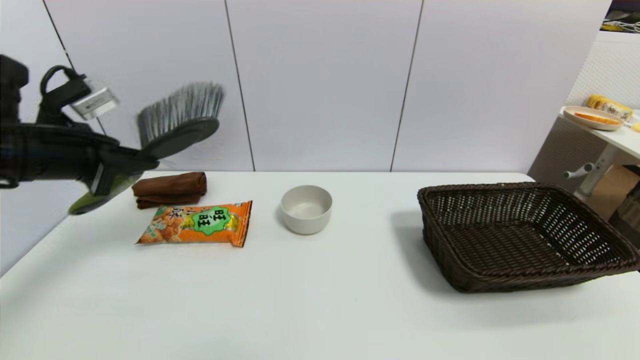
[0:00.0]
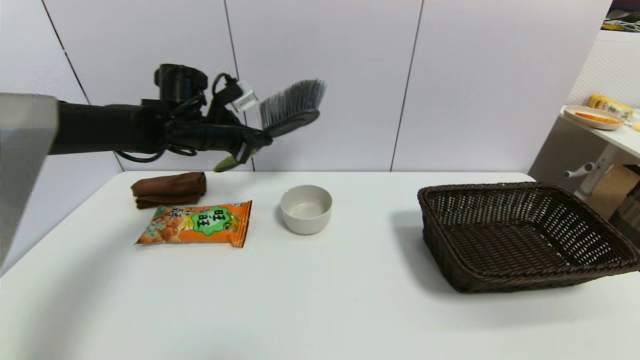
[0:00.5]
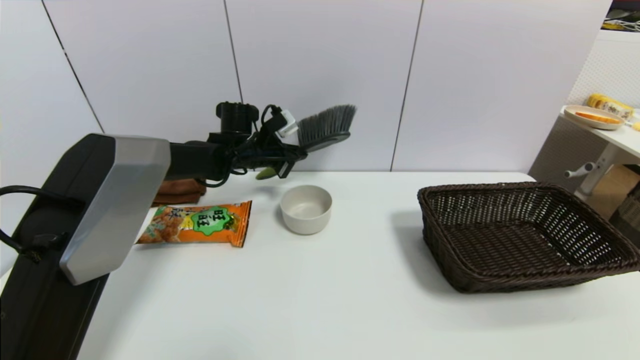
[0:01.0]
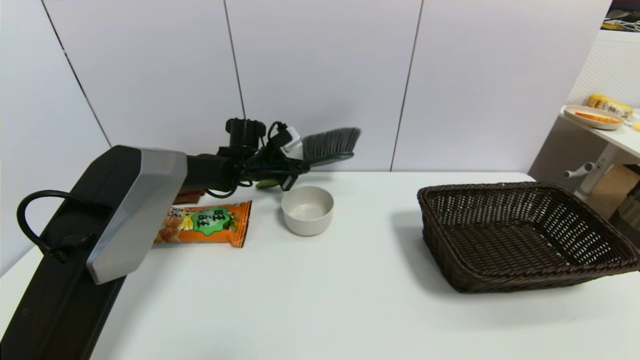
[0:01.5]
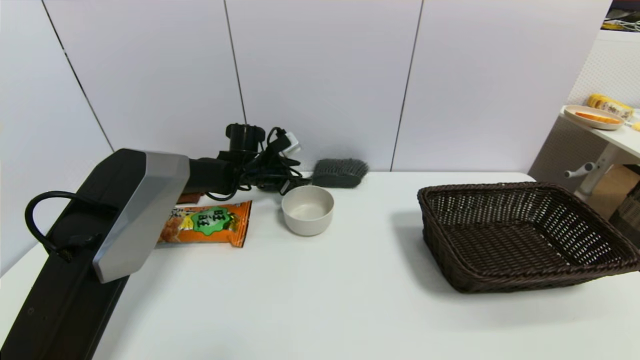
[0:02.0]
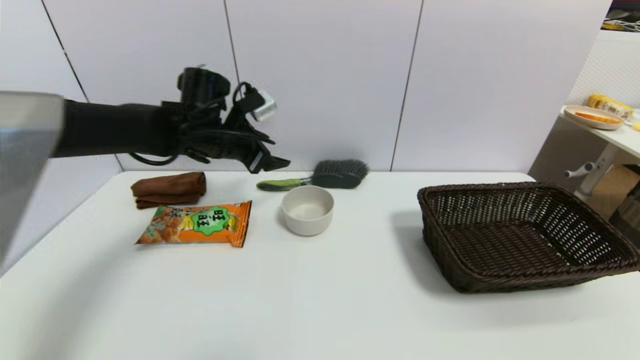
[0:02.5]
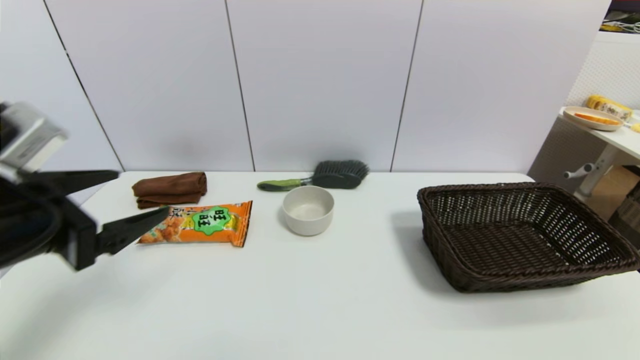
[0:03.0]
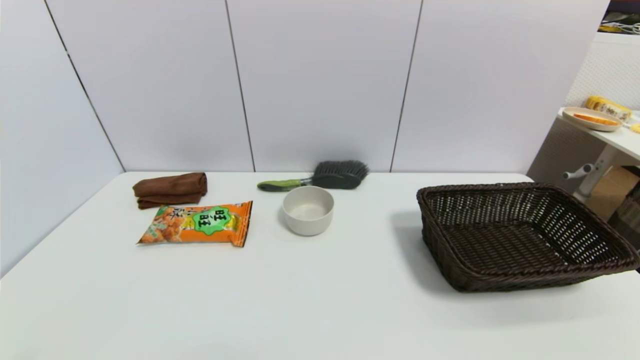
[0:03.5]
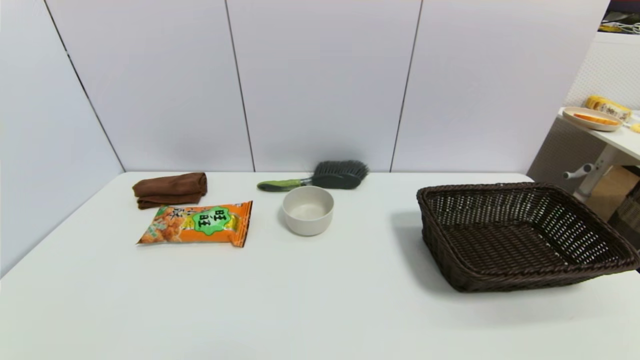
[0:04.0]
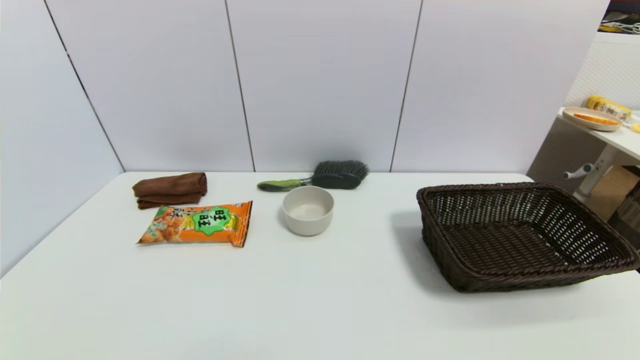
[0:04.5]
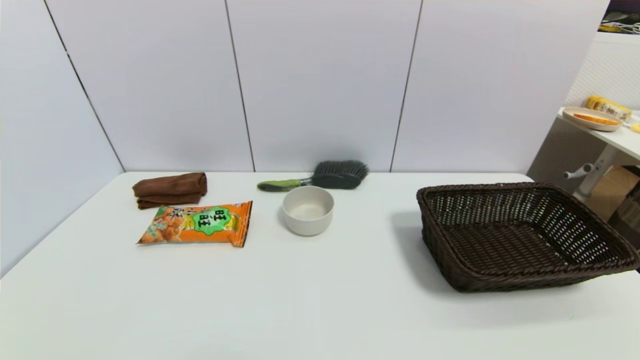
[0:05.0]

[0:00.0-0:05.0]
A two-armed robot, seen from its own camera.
Task of the whole recording: put the brush in the designated position.
Step, 0:00.0 to 0:01.5: Place the brush on the table with left gripper.
0:00.0 to 0:02.5: The left gripper heads to the right and forward, covering approximately 20 cm, and opens.
0:02.5 to 0:05.0: The left gripper moves backward, roughly 40 cm.

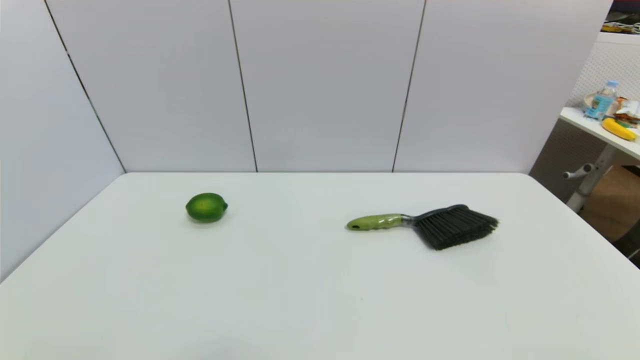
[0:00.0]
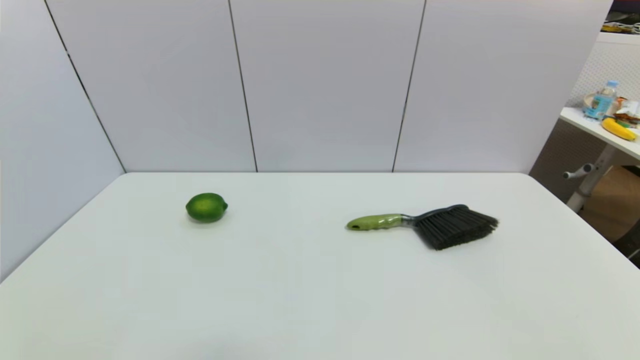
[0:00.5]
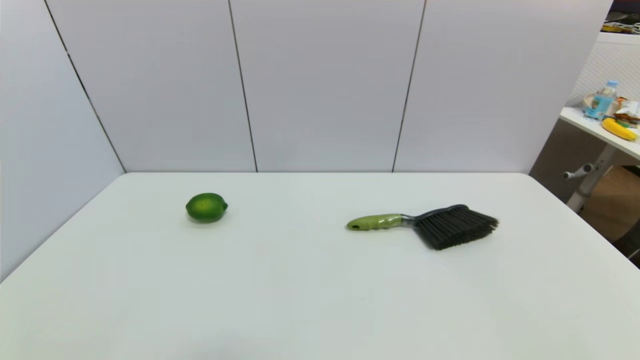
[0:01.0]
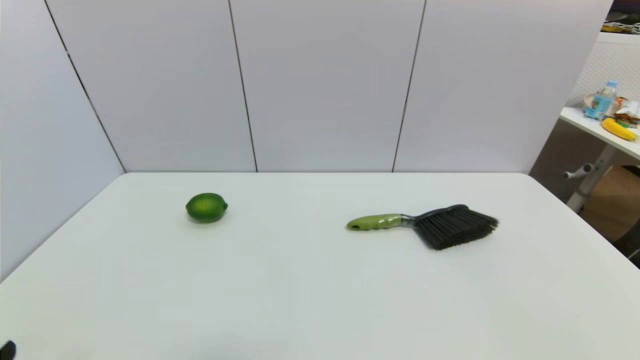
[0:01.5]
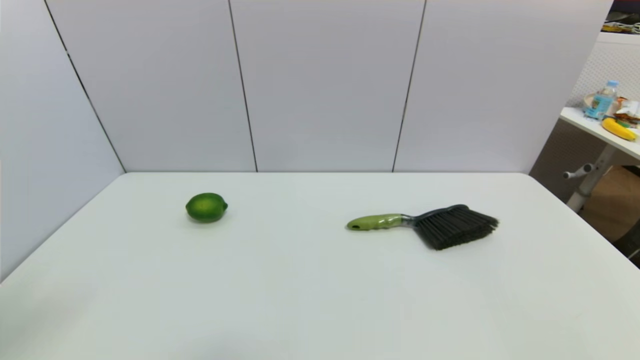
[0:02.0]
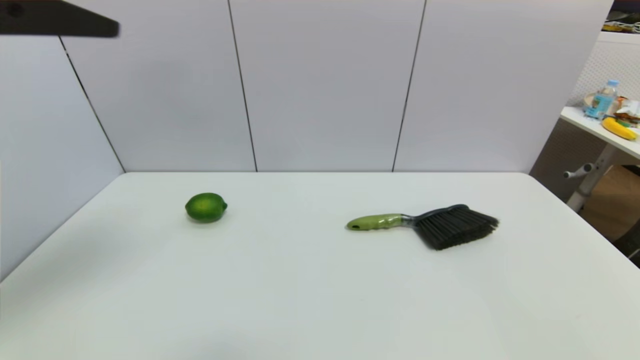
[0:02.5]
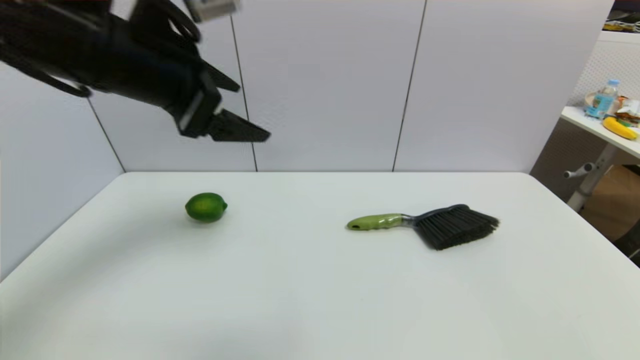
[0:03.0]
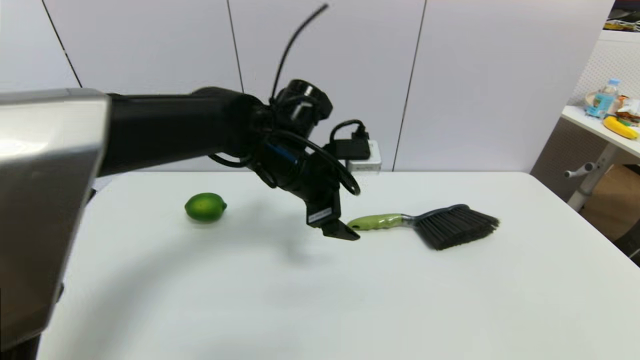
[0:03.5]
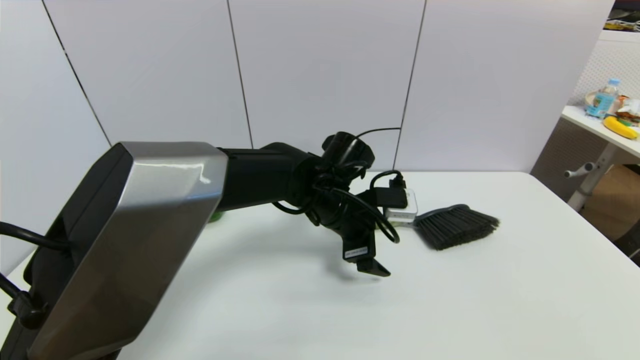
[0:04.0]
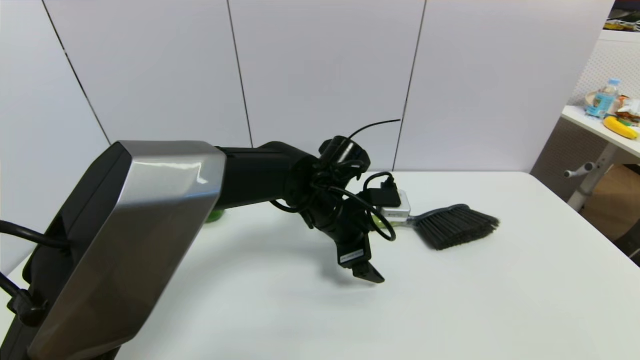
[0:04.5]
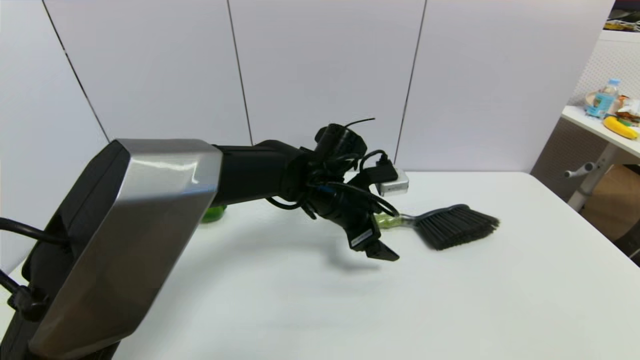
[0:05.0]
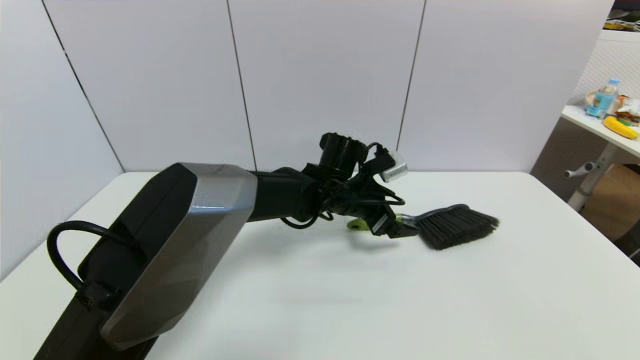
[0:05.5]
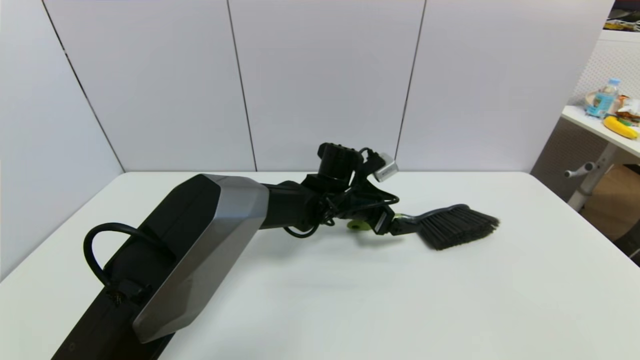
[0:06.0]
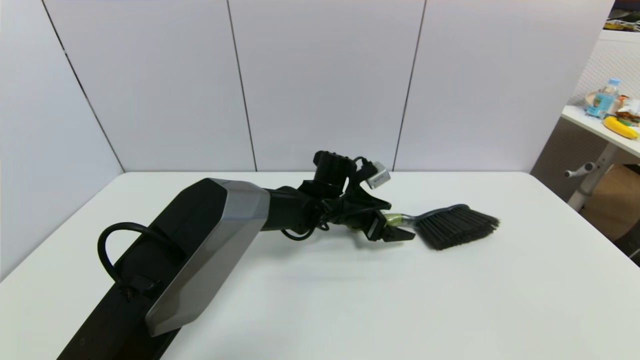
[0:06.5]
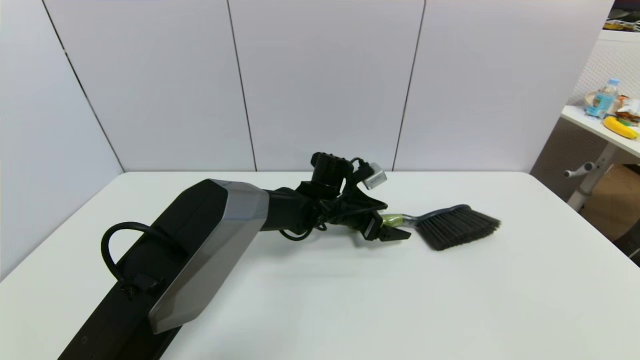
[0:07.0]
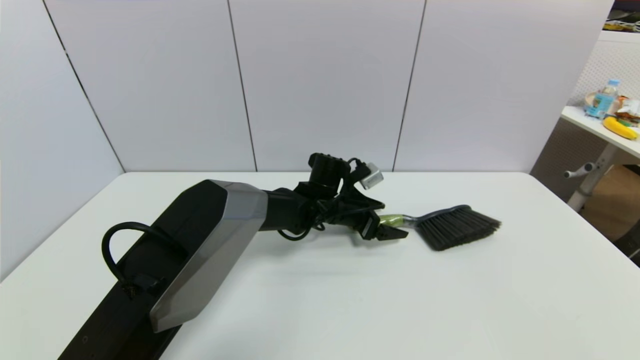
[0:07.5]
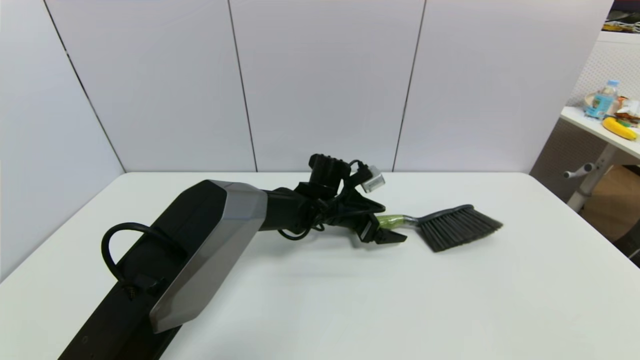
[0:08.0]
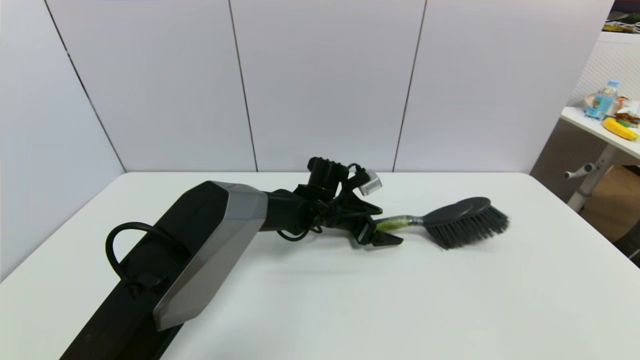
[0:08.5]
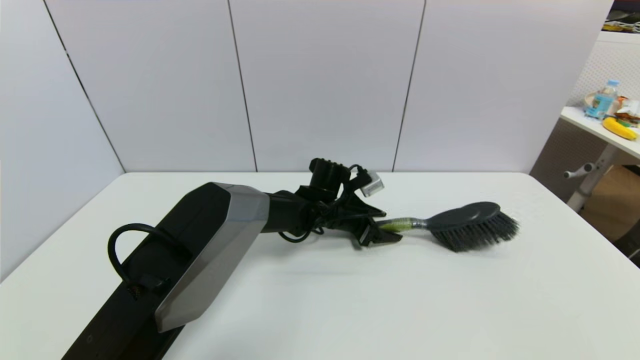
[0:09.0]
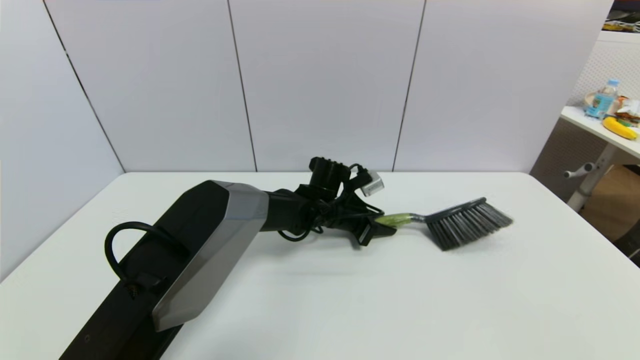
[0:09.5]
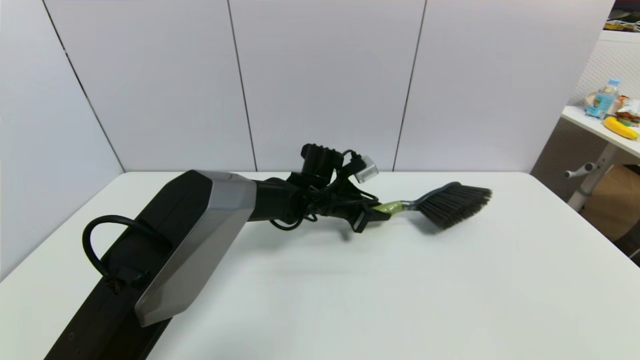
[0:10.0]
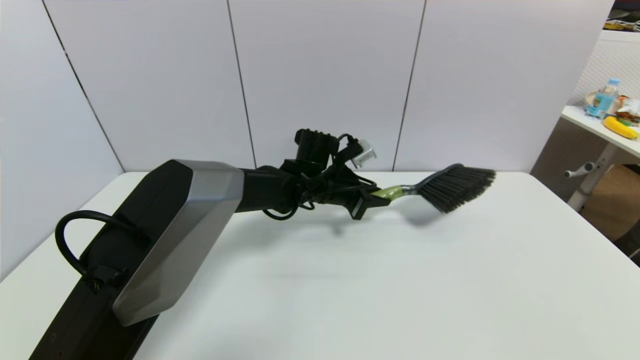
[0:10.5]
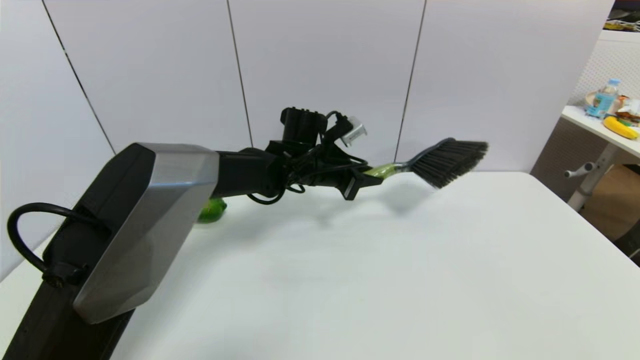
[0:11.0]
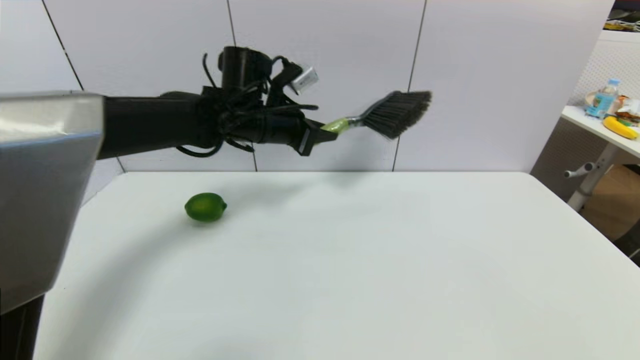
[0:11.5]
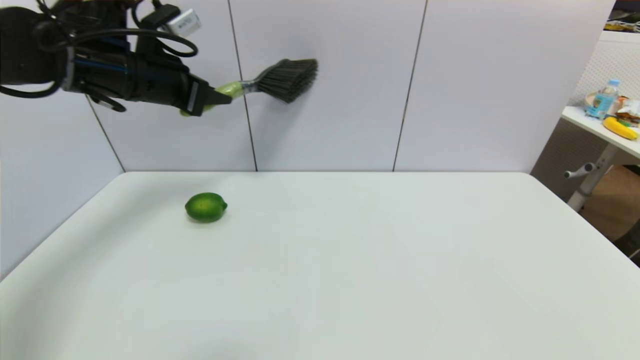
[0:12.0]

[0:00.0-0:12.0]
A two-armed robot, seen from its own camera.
Task of the whole recording: put the brush in the designated position.
Step, 0:01.0 to 0:09.5: Grasp the brush with left gripper.
0:00.0 to 0:02.0: The left gripper heads upward, covering roughly 25 cm.
0:02.0 to 0:04.0: The left gripper goes roughly 50 cm to the right, forward and downward.
0:04.0 to 0:06.0: The left gripper goes about 5 cm forward.
0:06.0 to 0:08.0: There are only small adjustments of the grippers.
0:08.0 to 0:10.0: The left gripper closes its fingers.
0:10.0 to 0:12.0: The left gripper shifts approximately 35 cm to the left and upward.

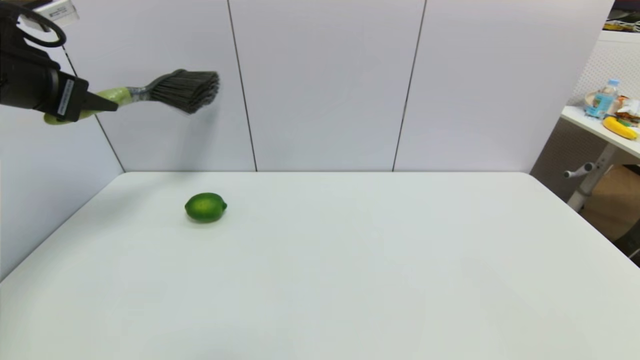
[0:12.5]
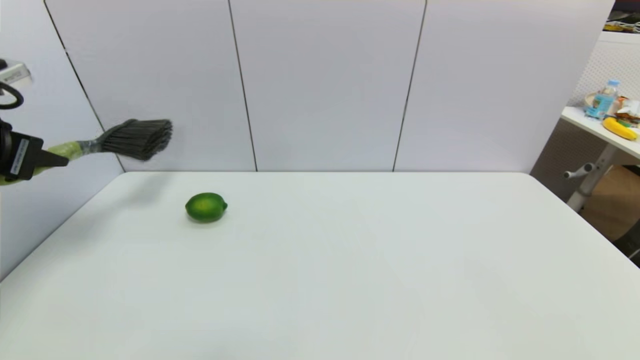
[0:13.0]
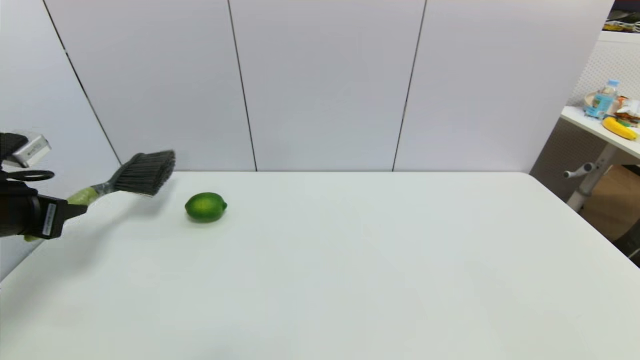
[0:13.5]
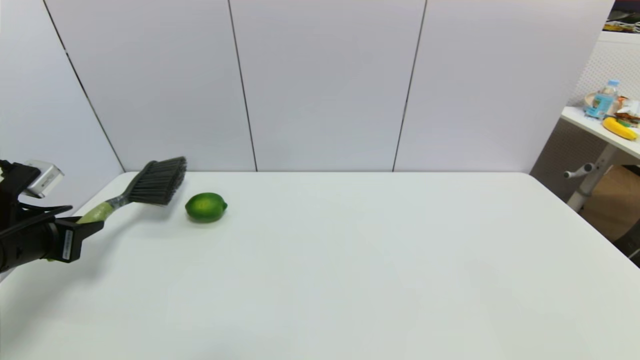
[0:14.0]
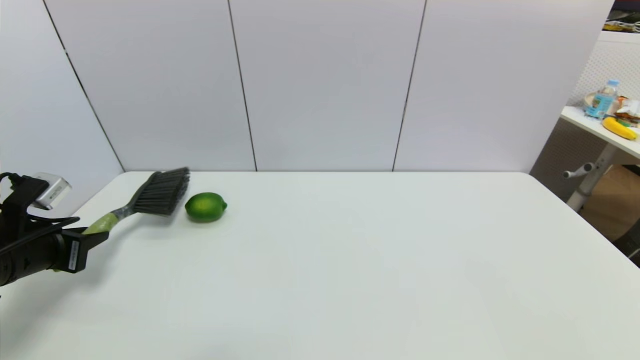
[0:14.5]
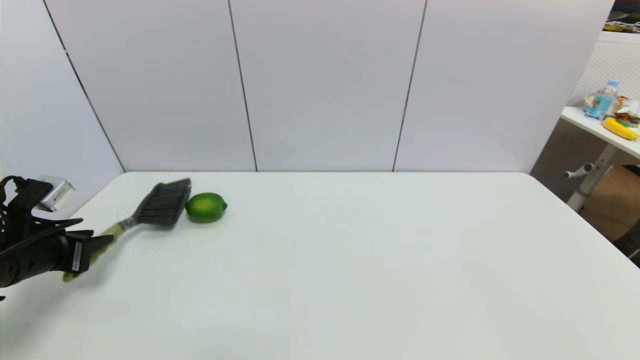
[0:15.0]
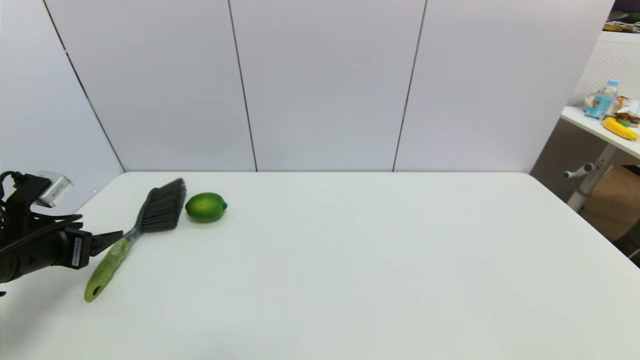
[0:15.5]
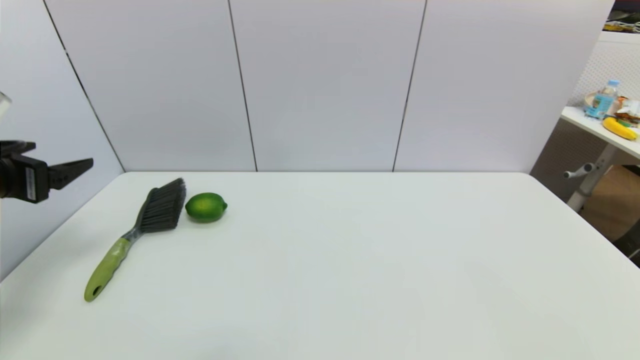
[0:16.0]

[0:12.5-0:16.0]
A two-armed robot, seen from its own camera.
Task of the whole recording: put the brush in the designated position.
Step, 0:12.5 to 0:15.0: Place the brush on the table with left gripper.
0:12.5 to 0:14.5: The left gripper moves downward, some 20 cm.
0:14.5 to 0:16.0: The left gripper moves upward, approximately 10 cm, and opens up.
